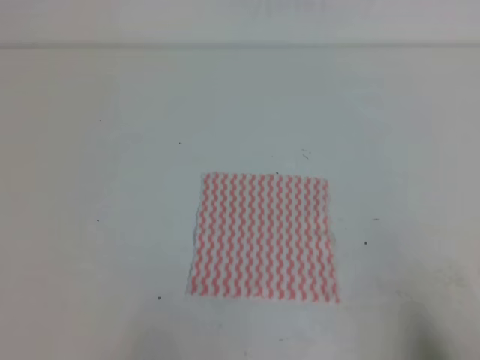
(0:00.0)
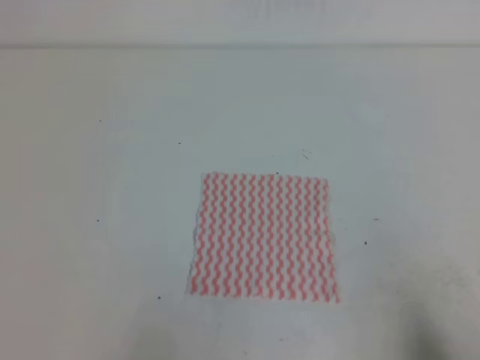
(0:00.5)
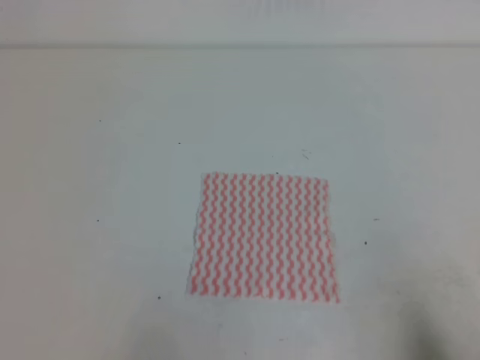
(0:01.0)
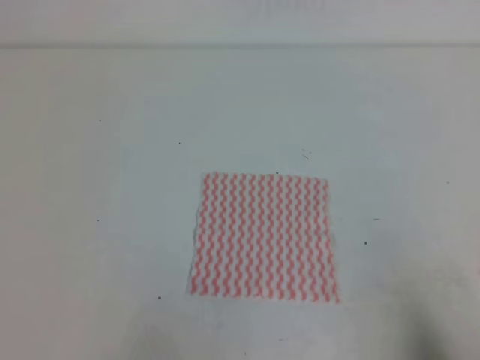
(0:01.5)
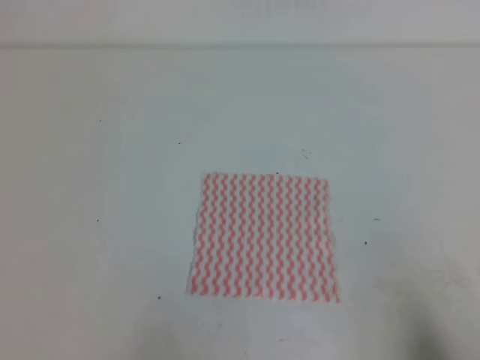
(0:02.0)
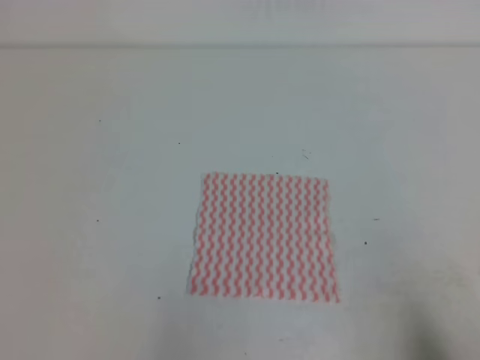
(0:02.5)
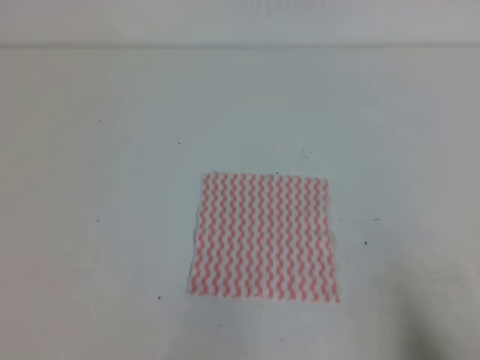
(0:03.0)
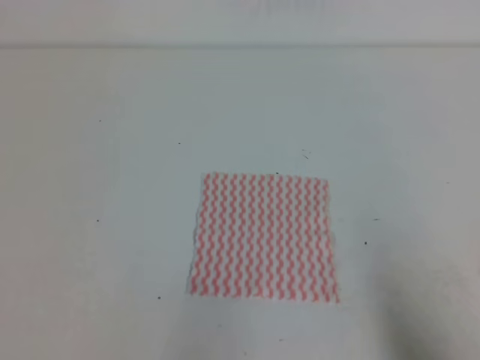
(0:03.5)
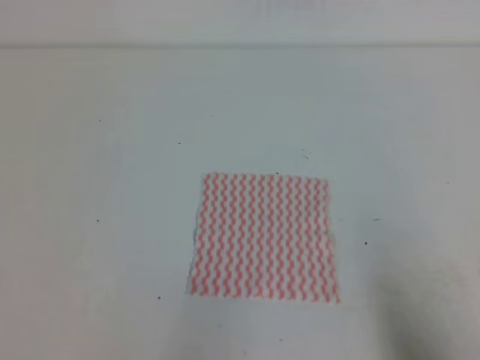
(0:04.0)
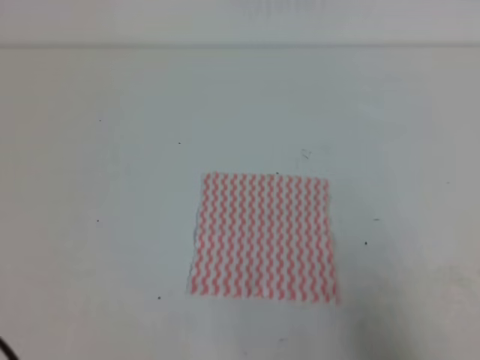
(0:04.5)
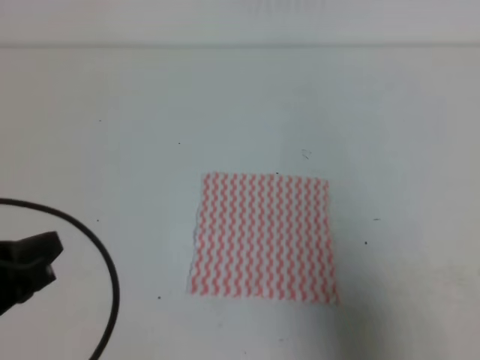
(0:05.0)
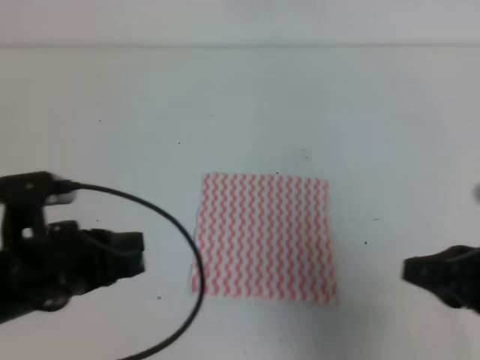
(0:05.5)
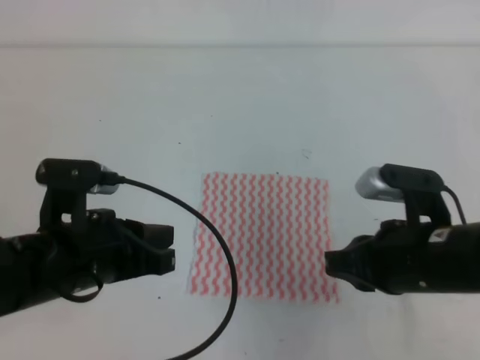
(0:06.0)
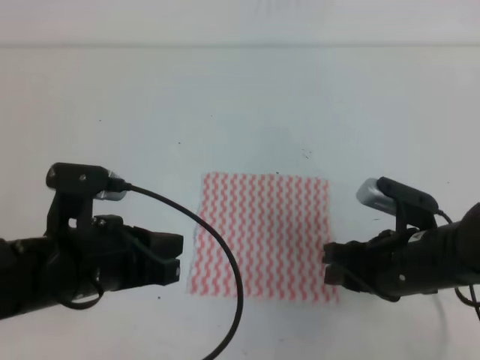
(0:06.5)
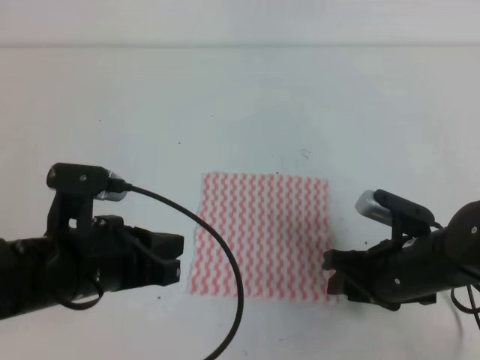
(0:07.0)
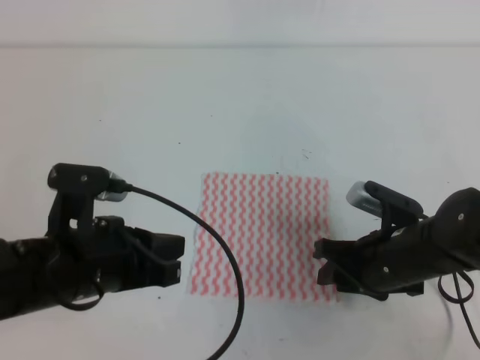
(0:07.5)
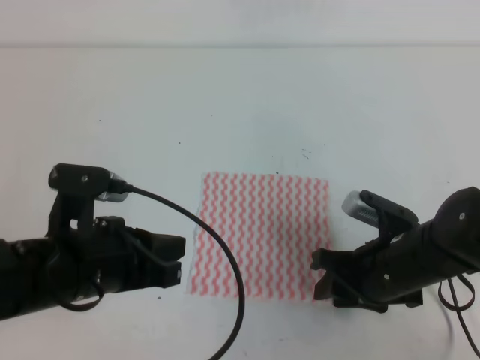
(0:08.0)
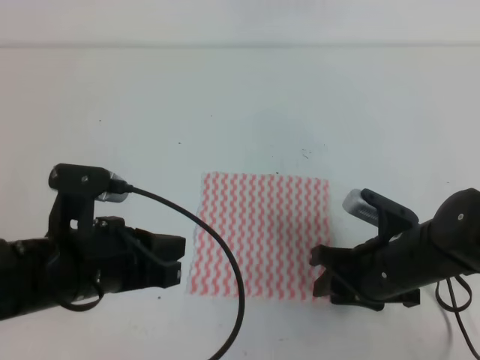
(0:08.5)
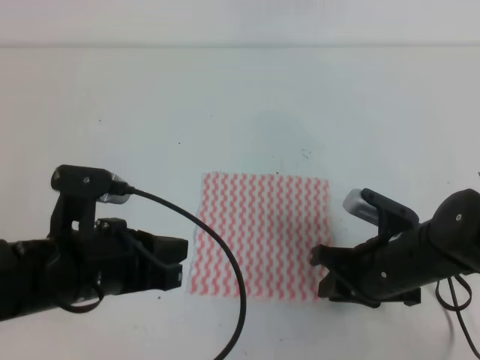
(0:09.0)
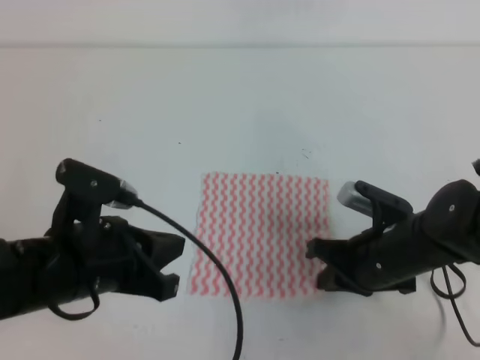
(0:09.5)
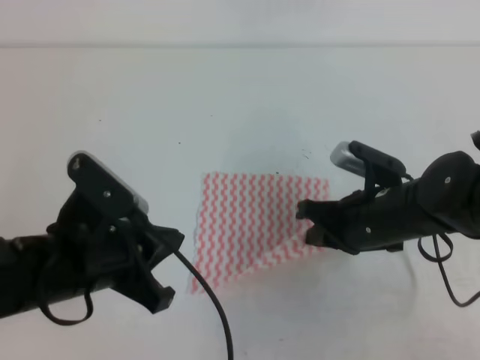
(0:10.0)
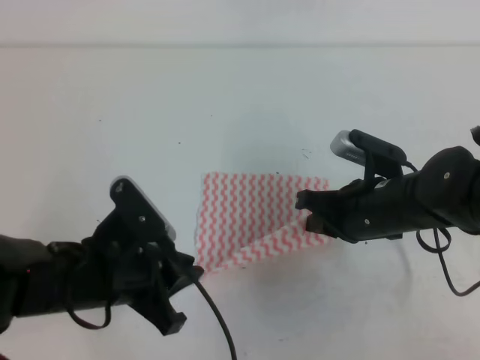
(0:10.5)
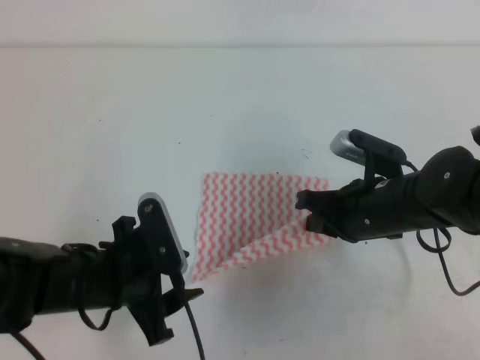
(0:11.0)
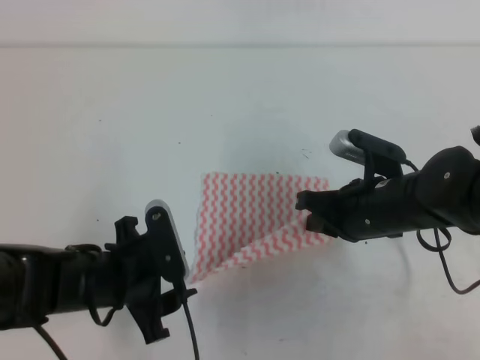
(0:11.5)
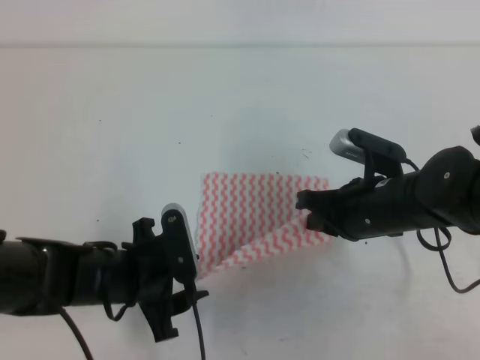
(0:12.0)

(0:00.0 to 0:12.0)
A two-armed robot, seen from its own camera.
0:00.0 - 0:02.0: Neither gripper changes place.
0:04.0 - 0:06.0: The right gripper heads forward and to the left, covering some 20 cm. The left gripper shifts approximately 20 cm forward and to the right.
0:06.0 - 0:08.0: The right gripper heads downward, covering approximately 10 cm, and opens up.
0:08.0 - 0:10.0: The right gripper changes place by some 5 cm, and closes its fingers.
0:10.0 - 0:12.0: The left gripper travels downward by about 10 cm, and opens.

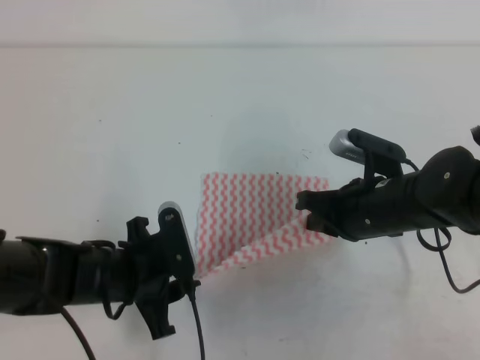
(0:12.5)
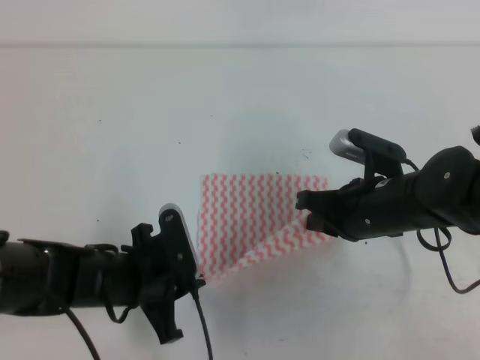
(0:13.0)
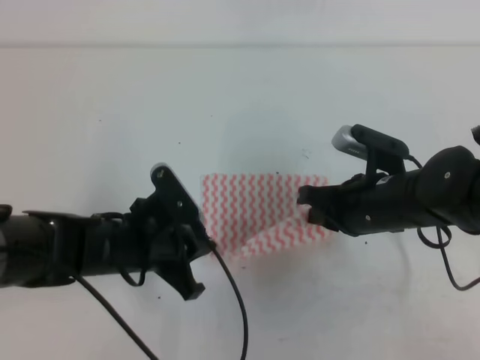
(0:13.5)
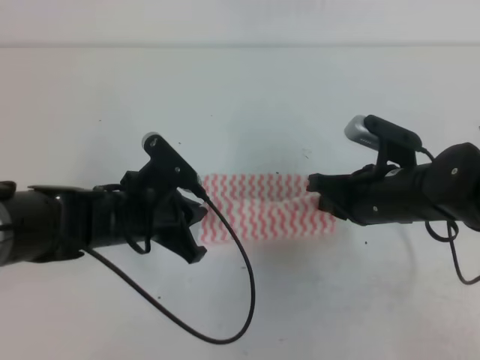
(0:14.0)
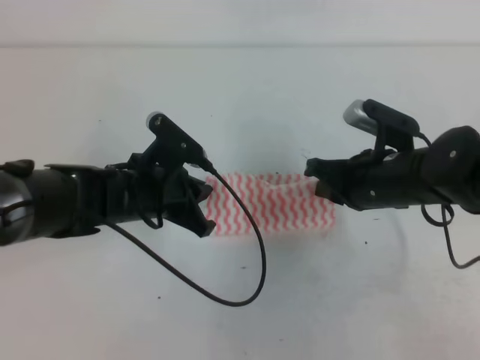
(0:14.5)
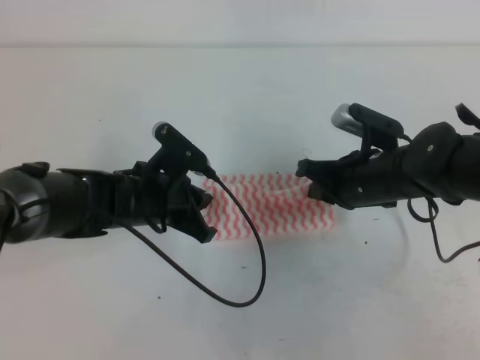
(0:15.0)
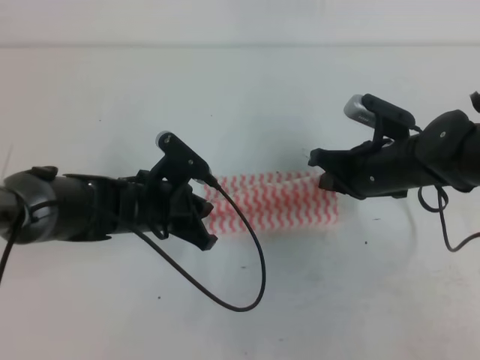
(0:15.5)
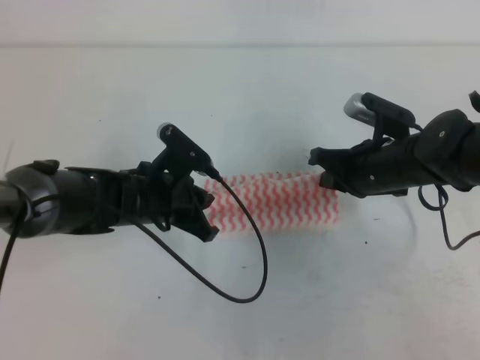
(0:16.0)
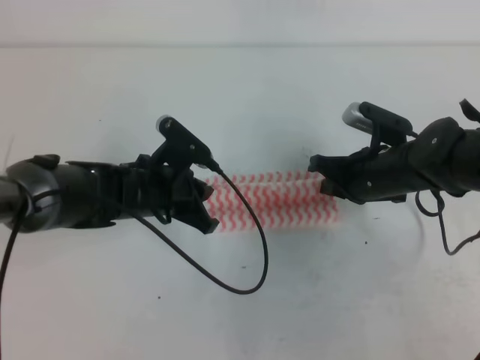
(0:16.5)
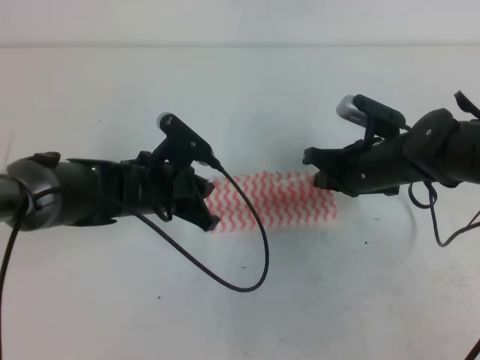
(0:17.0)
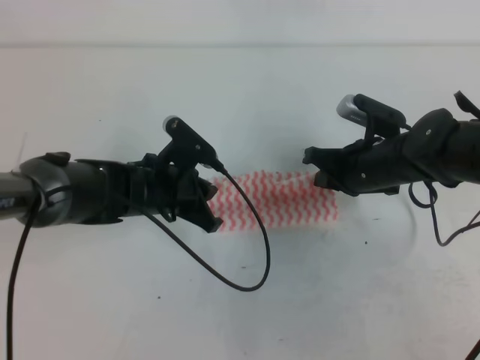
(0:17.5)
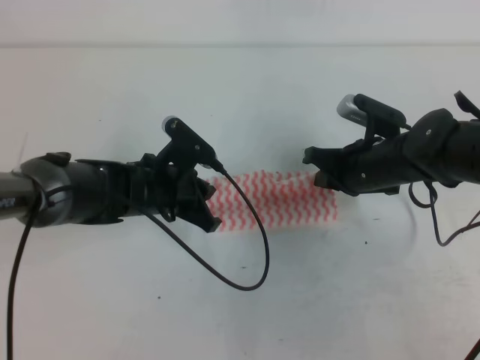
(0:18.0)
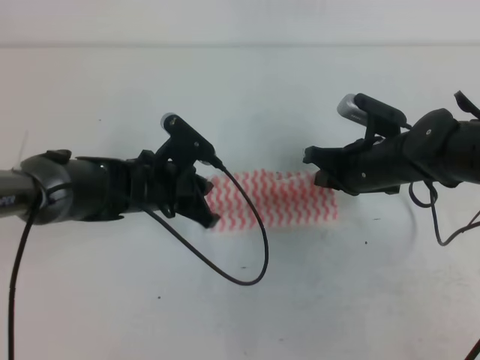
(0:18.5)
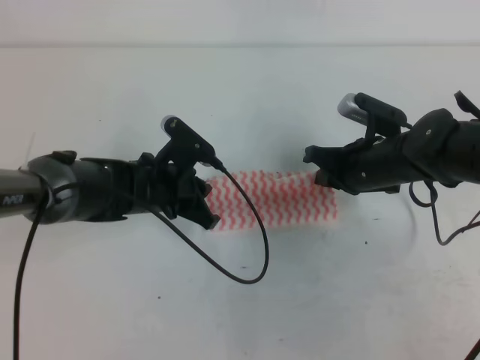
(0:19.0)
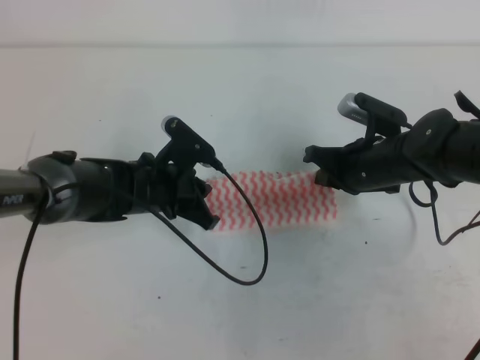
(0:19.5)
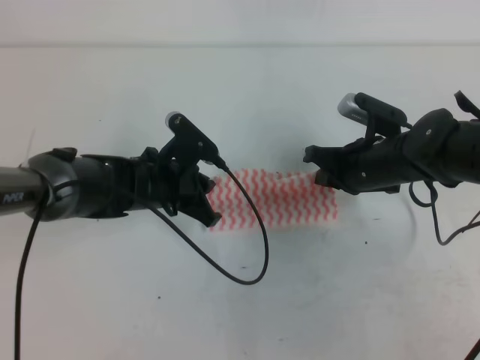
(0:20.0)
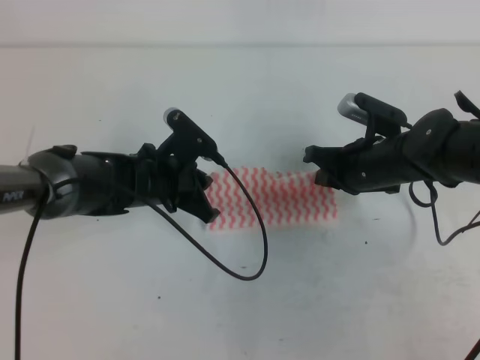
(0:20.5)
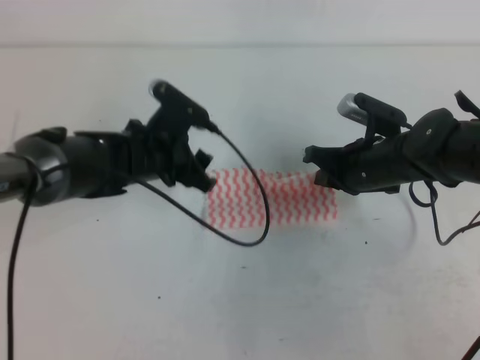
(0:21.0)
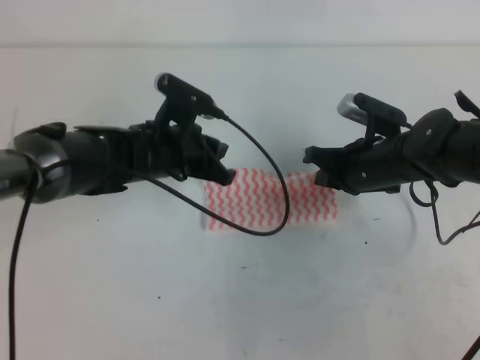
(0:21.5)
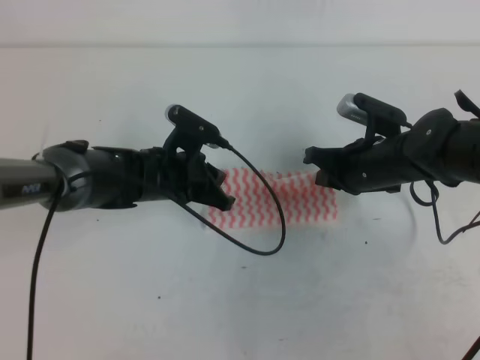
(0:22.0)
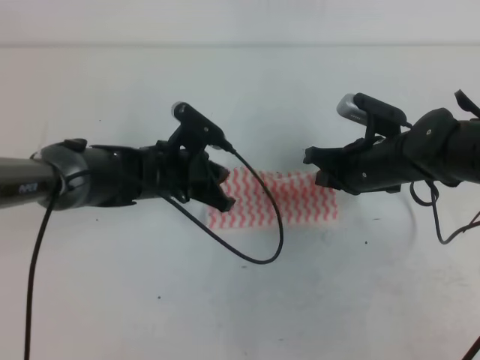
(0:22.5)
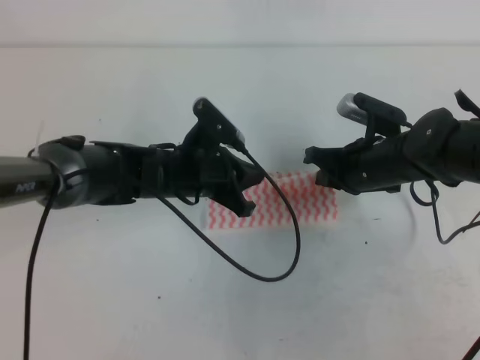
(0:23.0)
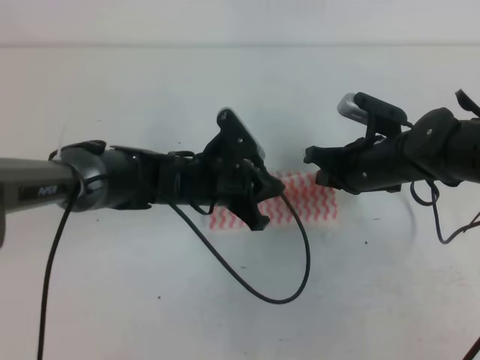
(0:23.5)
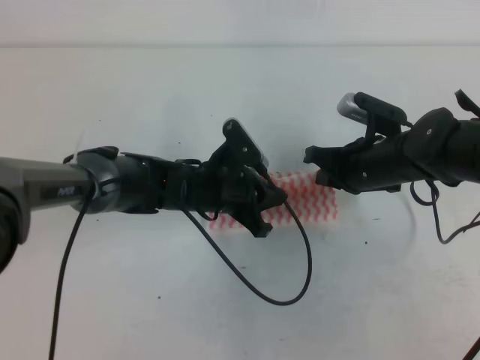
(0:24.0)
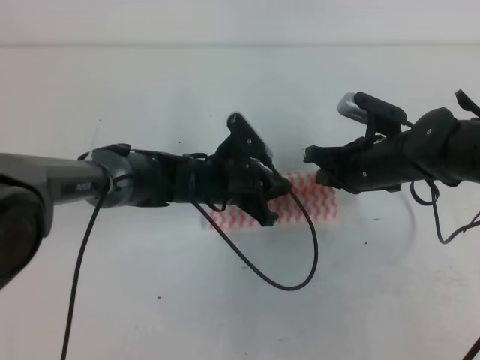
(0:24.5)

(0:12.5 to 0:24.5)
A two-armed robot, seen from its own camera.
0:12.5 - 0:14.5: The left gripper heads forward, covering about 5 cm, and closes its fingers.
0:14.5 - 0:18.5: The grippers move only a little.
0:18.5 - 0:20.5: Neither gripper changes place.
0:20.5 - 0:22.5: The left gripper opens, then closes once more.
0:22.5 - 0:24.5: The left gripper moves to the right, about 5 cm.

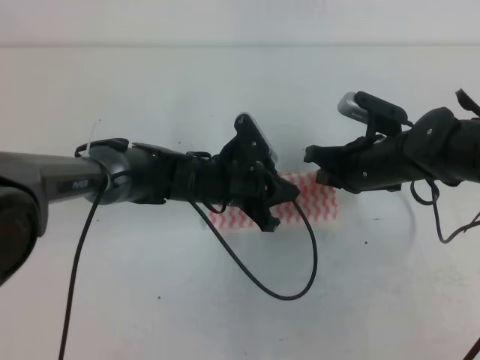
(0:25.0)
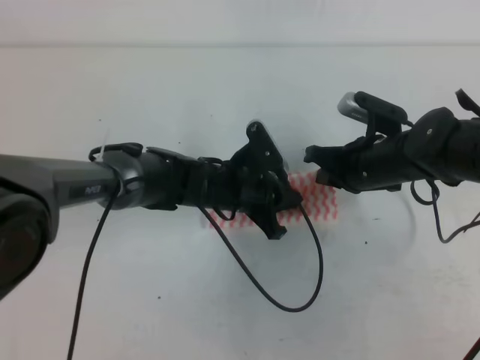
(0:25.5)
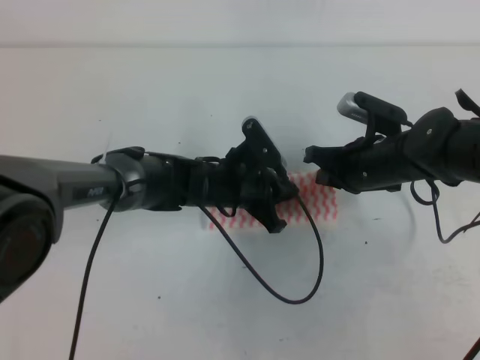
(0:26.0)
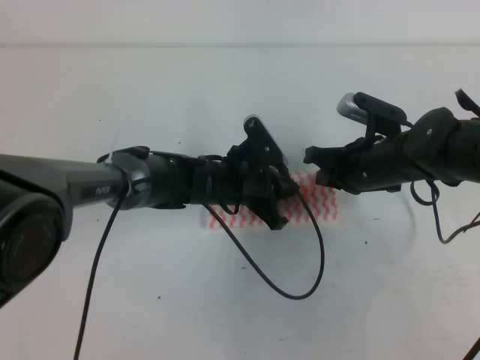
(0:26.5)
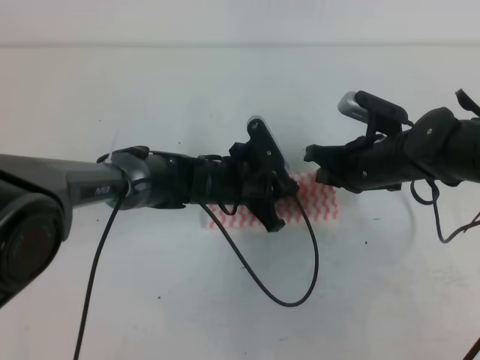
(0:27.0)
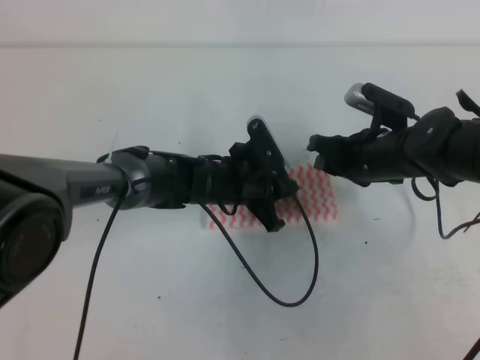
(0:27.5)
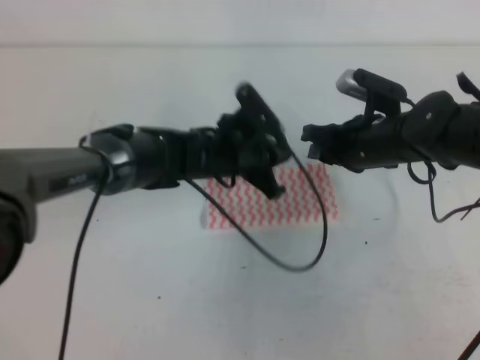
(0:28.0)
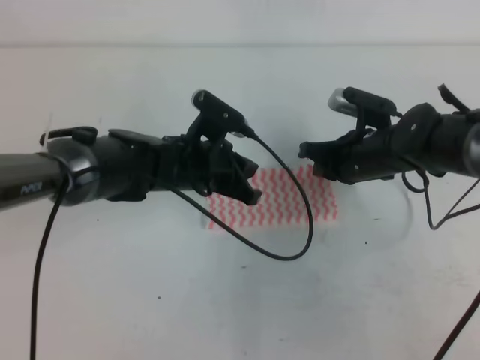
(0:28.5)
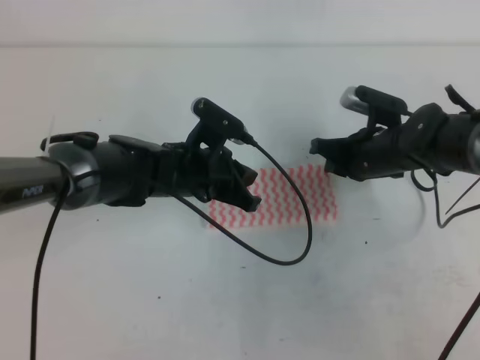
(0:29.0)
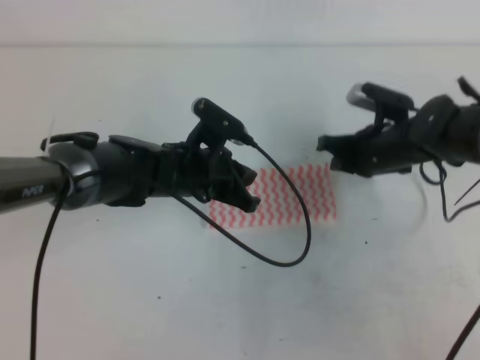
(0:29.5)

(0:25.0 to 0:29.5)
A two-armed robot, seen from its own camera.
0:25.0 - 0:27.0: The grippers move only a little.
0:27.0 - 0:29.5: The left gripper changes place by some 5 cm. The right gripper opens, then closes once more.
